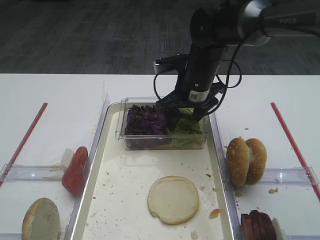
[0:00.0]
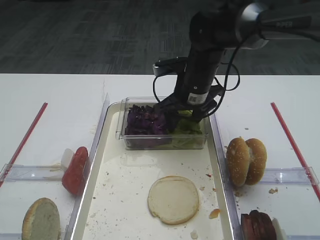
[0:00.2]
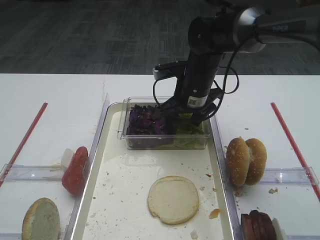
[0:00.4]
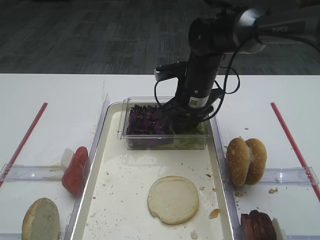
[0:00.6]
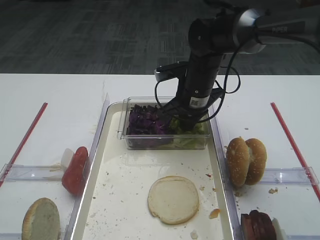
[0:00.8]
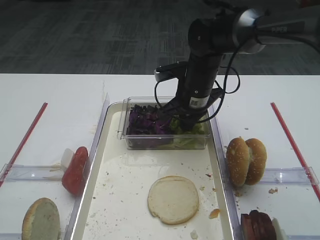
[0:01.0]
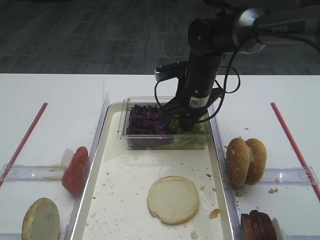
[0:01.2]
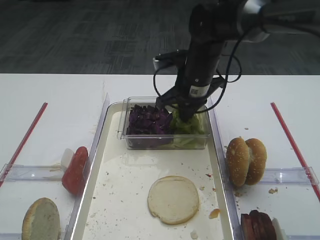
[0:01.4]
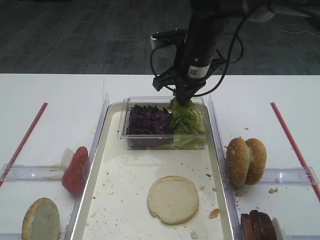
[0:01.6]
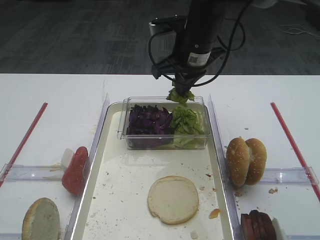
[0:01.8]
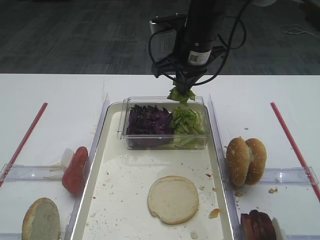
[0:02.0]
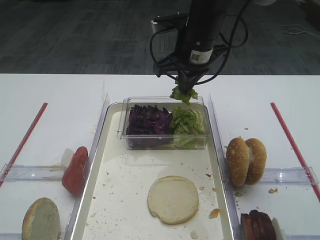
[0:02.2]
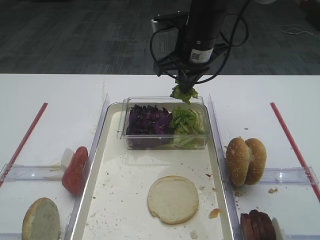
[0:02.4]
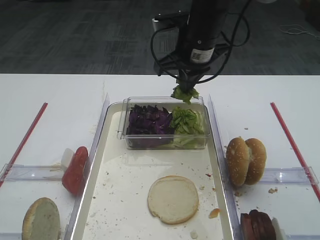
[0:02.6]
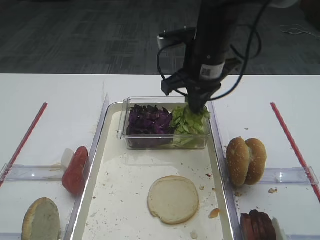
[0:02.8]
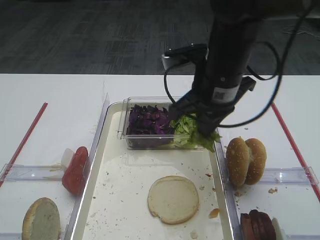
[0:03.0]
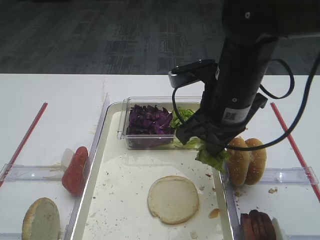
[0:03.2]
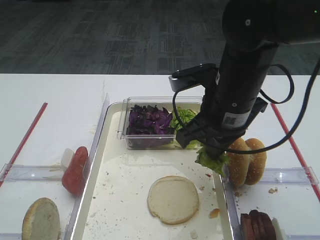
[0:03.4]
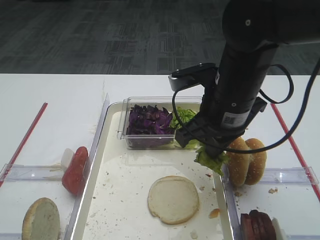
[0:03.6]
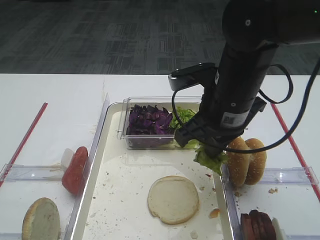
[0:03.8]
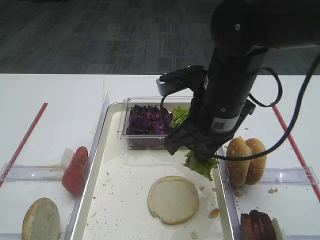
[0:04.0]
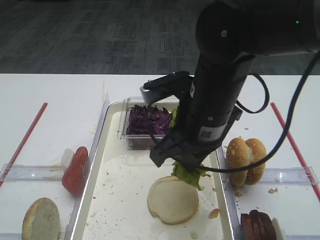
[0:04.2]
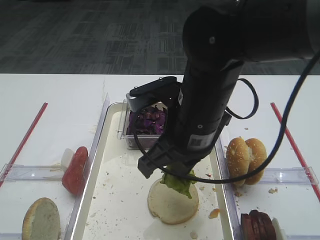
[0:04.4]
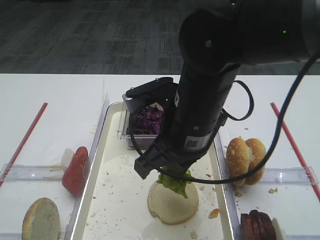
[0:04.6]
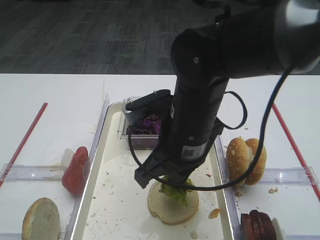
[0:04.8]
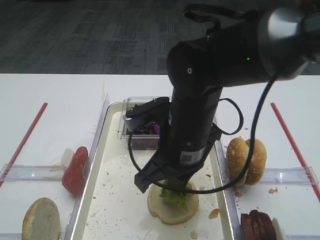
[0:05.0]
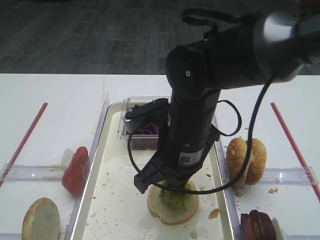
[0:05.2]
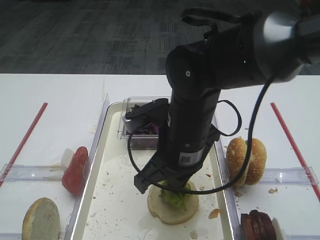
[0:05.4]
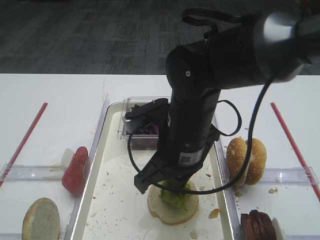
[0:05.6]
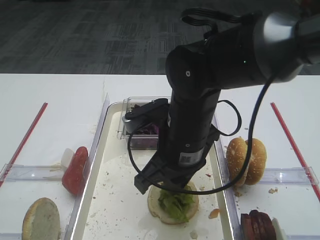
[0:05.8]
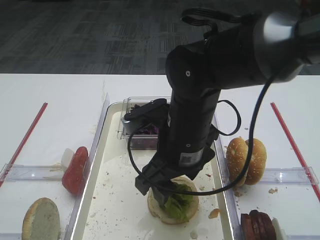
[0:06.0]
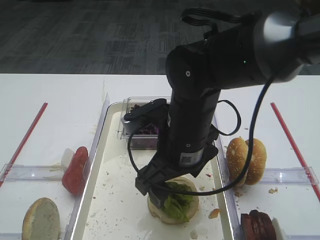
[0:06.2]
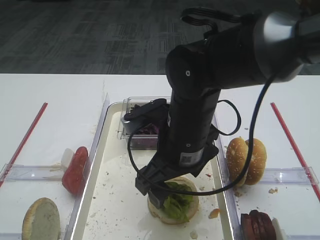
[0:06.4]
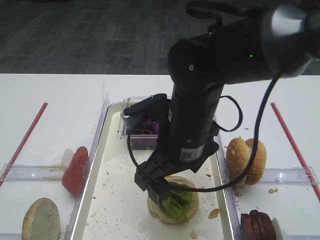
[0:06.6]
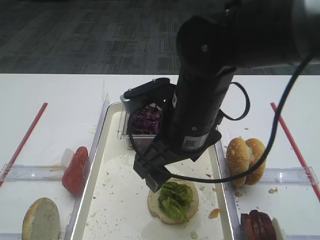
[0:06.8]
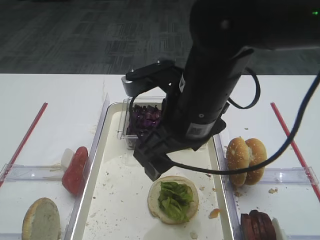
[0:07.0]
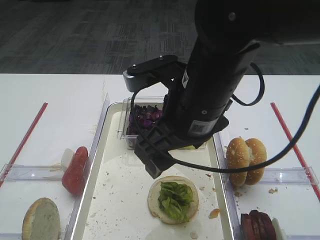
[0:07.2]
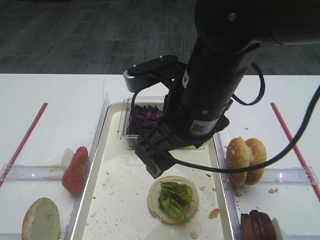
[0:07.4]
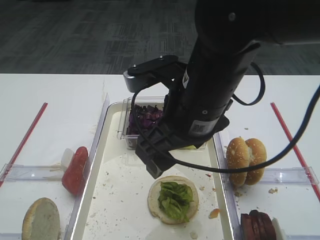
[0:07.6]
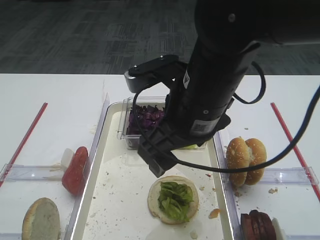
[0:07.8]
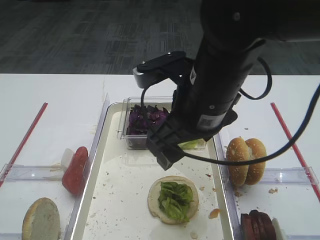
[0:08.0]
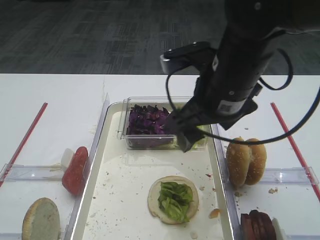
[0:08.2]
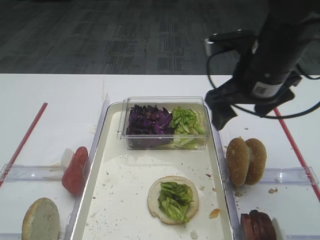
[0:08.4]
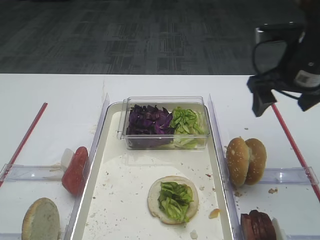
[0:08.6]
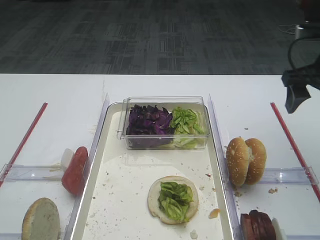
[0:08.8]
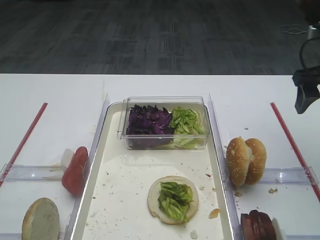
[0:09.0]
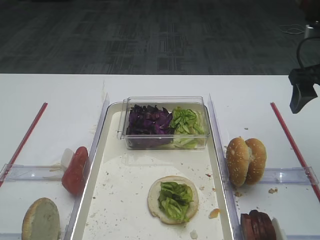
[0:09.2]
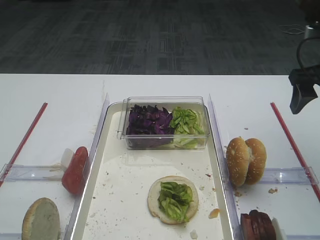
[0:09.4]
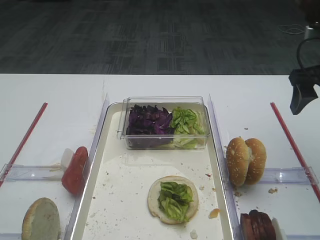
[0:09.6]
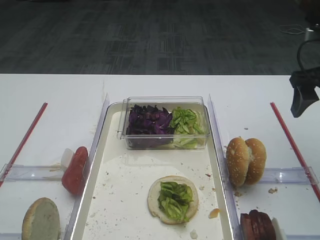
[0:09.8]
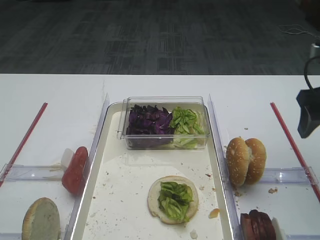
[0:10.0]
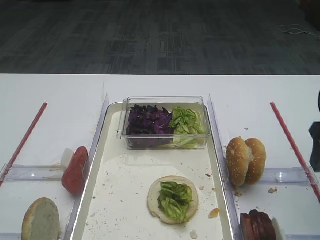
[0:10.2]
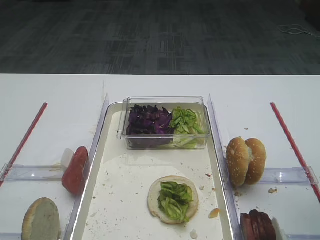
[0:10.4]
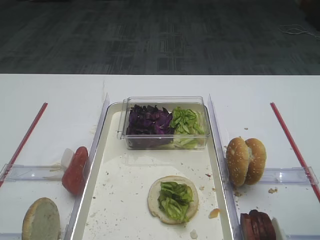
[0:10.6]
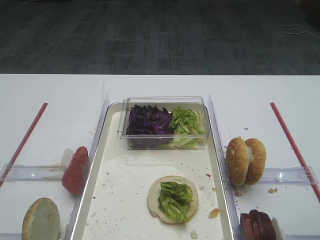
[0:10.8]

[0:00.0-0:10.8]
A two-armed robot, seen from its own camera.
Step, 0:01.6 to 0:06.6: Place the lettuce leaf on the bread slice with the right gripper.
0:00.0 to 0:01.6: The right gripper closes up.
0:01.6 to 0:03.0: The right gripper is displaced backward by about 10 cm.
0:03.0 to 0:04.6: The right gripper heads backward, covering some 5 cm.
0:04.6 to 0:06.2: The right gripper opens its fingers.
0:06.2 to 0:07.8: The right gripper heads upward, covering about 5 cm.
0:07.8 to 0:09.2: The right gripper is displaced to the right by about 25 cm.
0:09.2 to 0:10.8: The right gripper shifts approximately 20 cm backward.

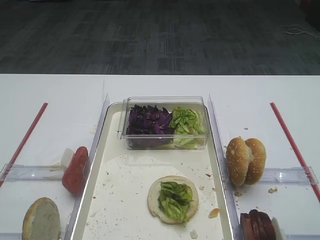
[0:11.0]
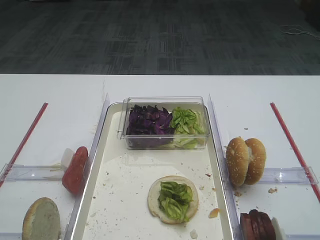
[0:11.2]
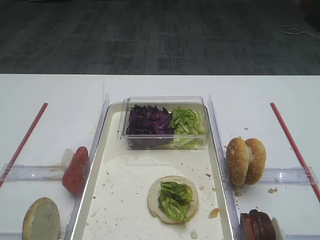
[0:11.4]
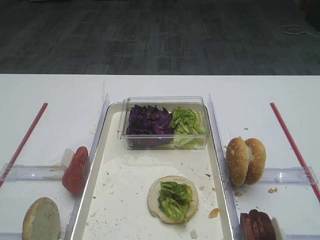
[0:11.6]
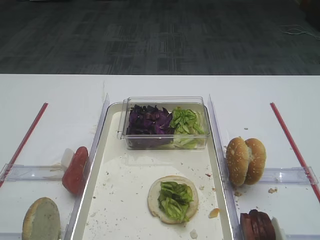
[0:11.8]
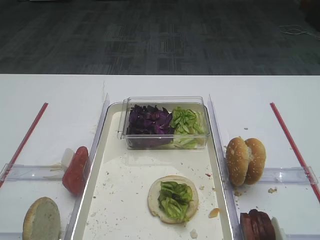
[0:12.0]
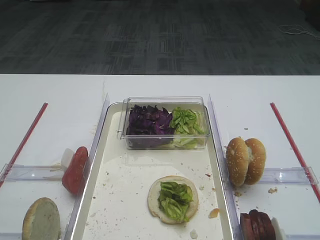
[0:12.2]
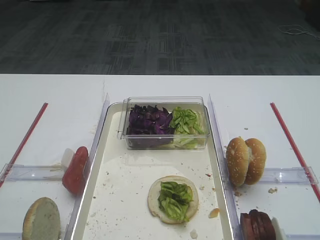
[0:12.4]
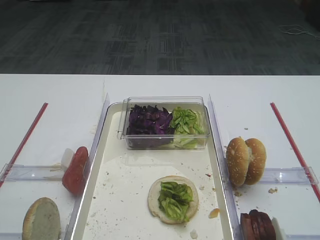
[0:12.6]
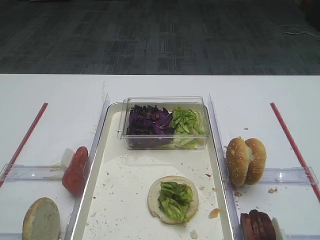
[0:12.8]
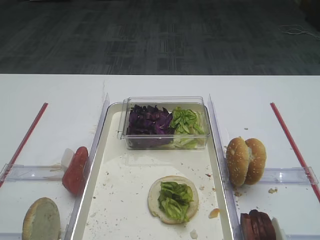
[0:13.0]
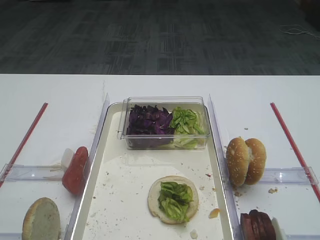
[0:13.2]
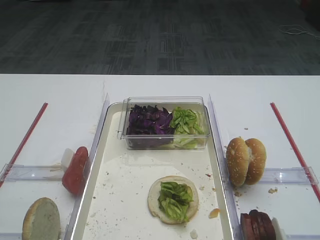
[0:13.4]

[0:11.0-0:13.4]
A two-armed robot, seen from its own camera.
0:12.2 to 0:13.4: Neither gripper changes place.

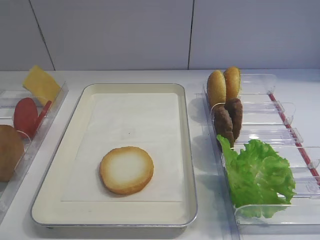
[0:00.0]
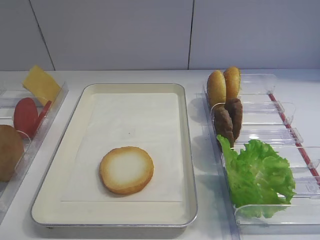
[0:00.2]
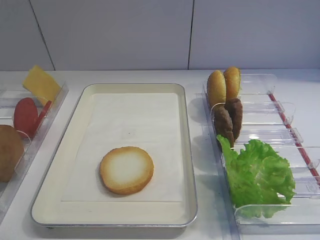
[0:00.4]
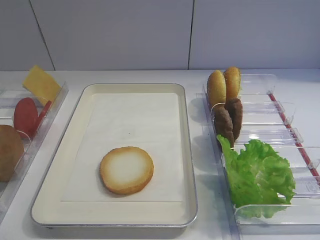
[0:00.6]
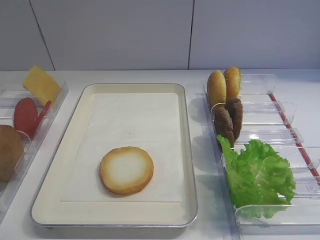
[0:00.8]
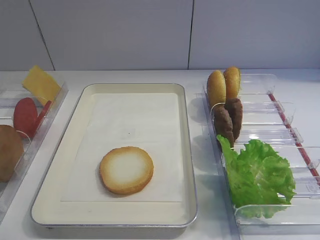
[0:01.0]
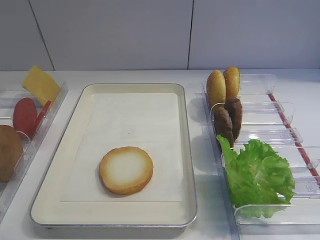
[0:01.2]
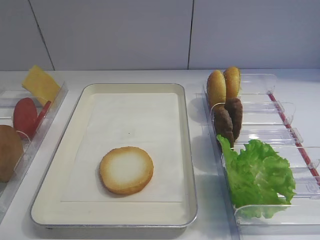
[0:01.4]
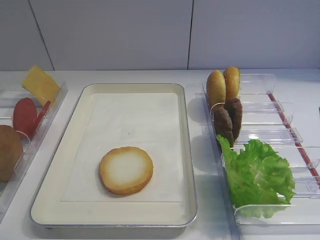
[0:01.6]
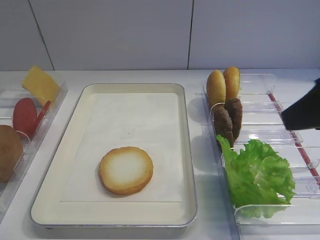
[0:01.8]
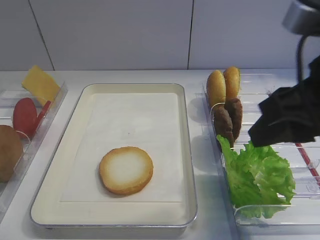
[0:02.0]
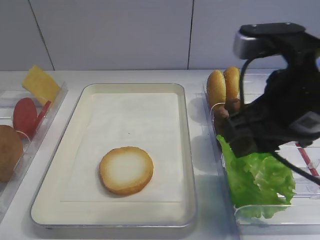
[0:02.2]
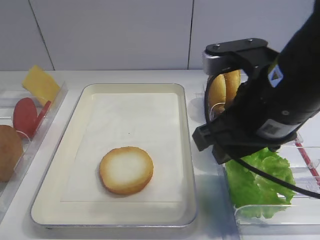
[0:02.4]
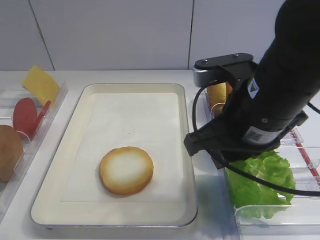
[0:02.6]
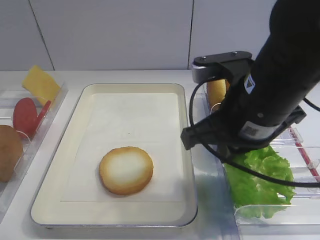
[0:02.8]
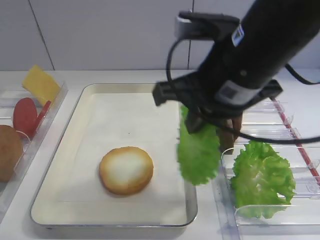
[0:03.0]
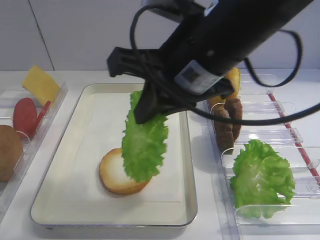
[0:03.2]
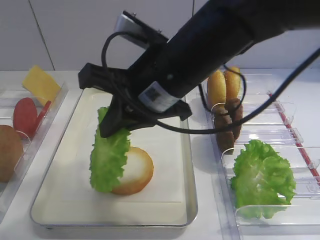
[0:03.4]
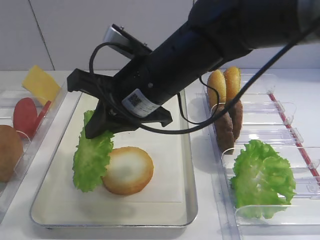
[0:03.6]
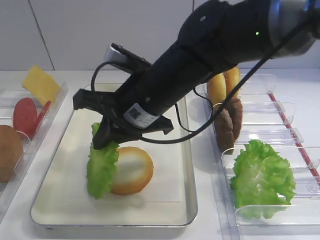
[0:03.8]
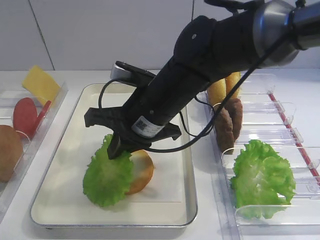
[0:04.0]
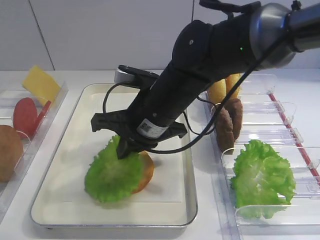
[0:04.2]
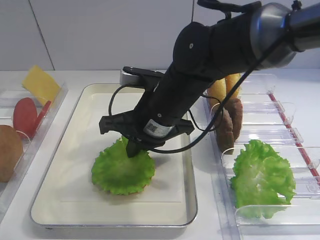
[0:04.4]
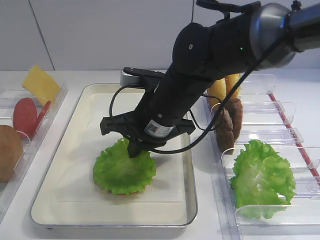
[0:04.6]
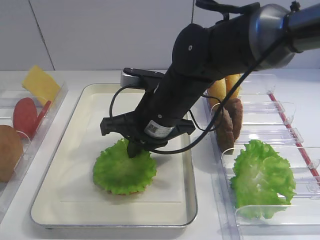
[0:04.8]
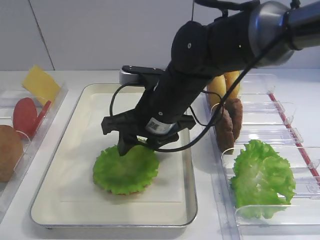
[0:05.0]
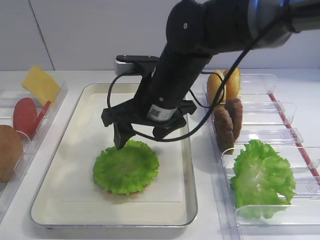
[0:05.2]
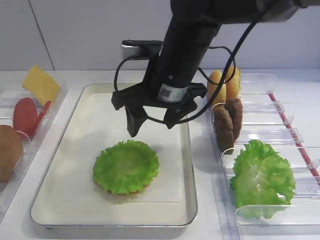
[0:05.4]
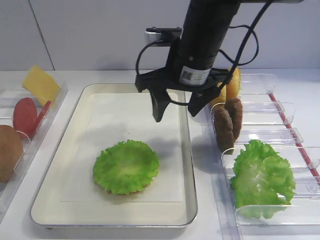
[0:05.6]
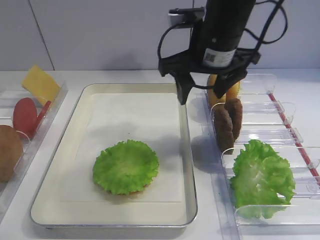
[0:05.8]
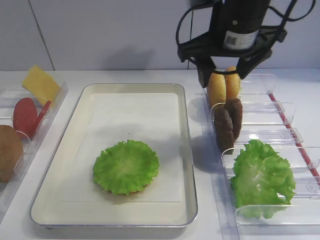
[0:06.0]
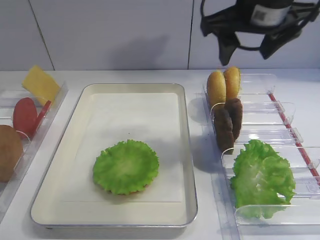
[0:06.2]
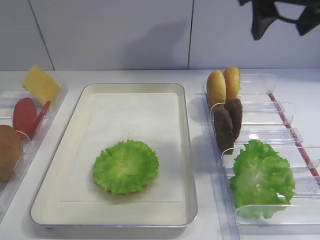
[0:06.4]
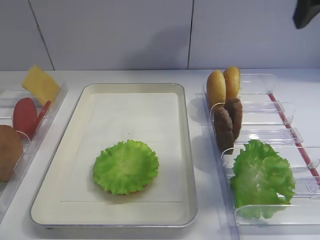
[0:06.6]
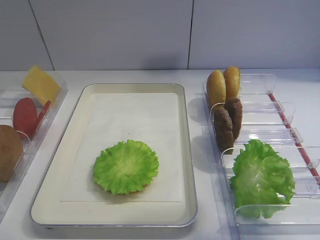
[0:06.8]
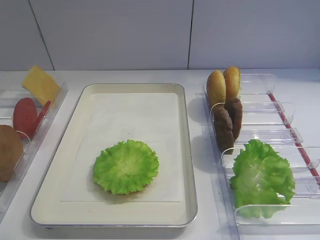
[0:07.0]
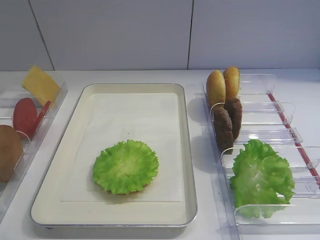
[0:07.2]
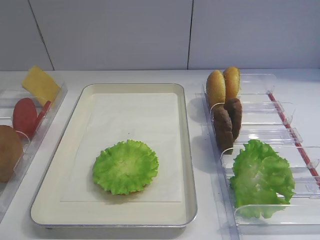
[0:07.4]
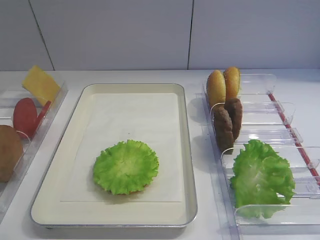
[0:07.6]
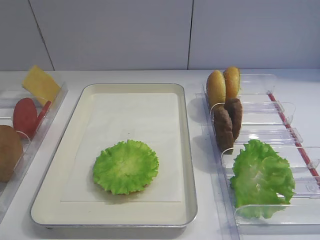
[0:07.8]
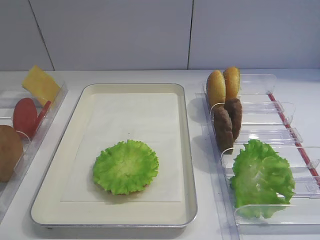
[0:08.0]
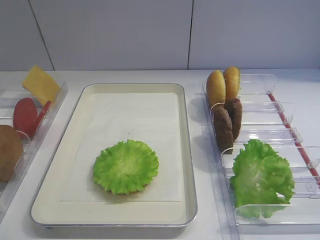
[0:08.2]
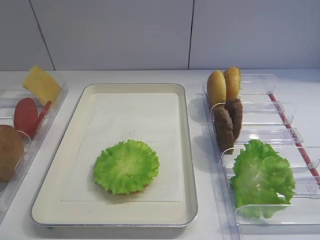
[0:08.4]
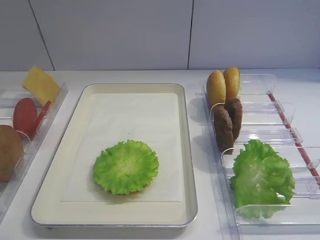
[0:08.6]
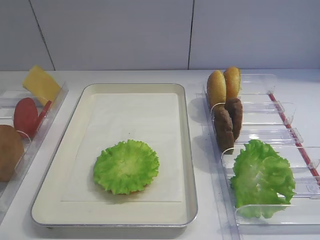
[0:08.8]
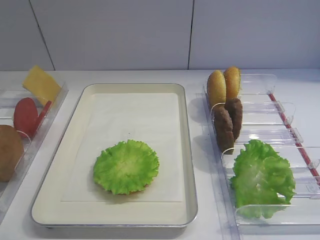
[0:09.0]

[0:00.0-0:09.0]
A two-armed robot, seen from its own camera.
Step, 0:00.0 to 0:02.8: Pick up the lettuce leaf with the right gripper.
Step, 0:03.0 to 0:05.2: Place the lettuce leaf on the bread slice with the right gripper.
0:01.6 to 0:03.0: The right gripper travels to the left and forward by some 20 cm, and closes its fingers.
0:03.0 to 0:04.4: The right gripper shifts about 15 cm downward, to the left and forward.
0:04.4 to 0:06.0: The right gripper is displaced upward and to the right by some 15 cm, and opens up.
0:06.0 to 0:07.6: The right gripper is displaced backward and to the right by about 35 cm.
